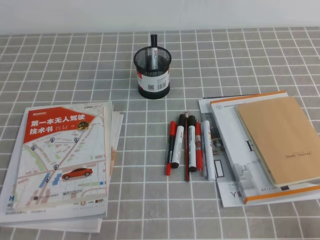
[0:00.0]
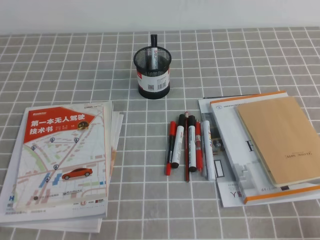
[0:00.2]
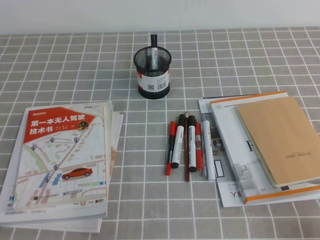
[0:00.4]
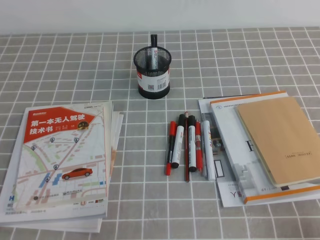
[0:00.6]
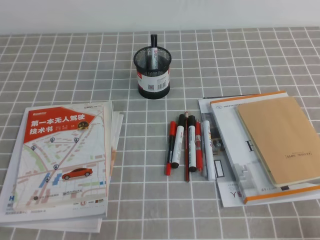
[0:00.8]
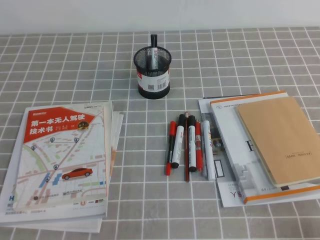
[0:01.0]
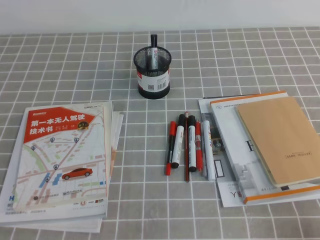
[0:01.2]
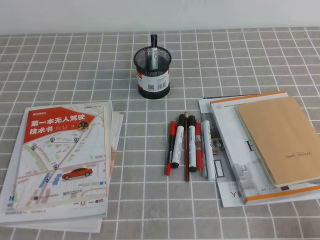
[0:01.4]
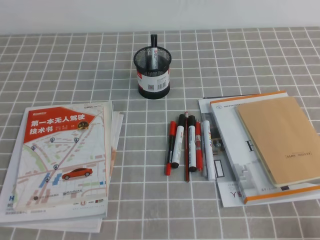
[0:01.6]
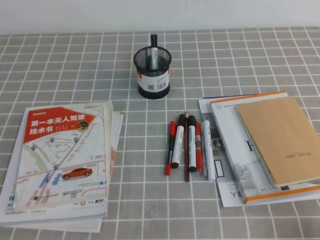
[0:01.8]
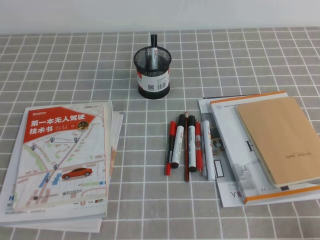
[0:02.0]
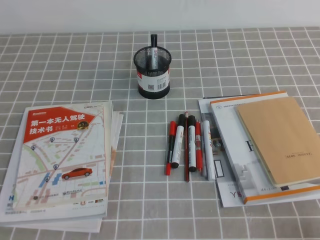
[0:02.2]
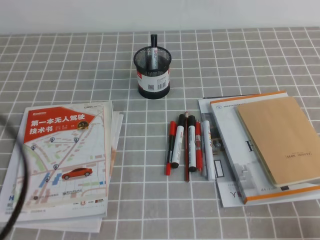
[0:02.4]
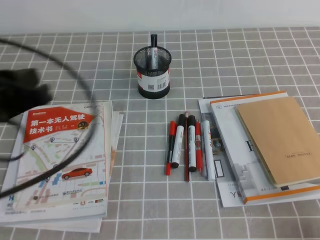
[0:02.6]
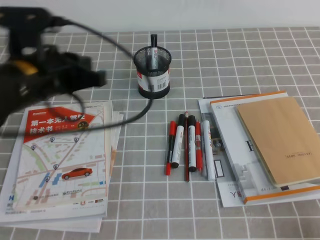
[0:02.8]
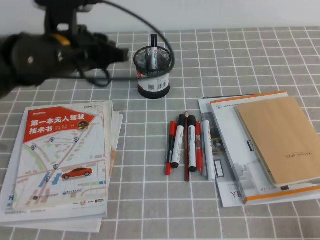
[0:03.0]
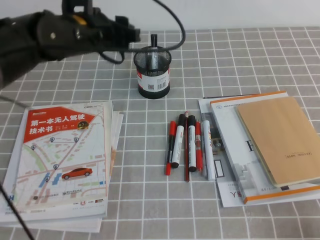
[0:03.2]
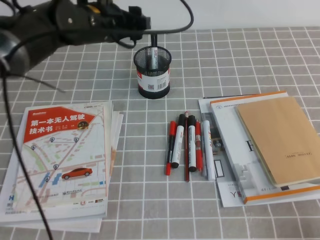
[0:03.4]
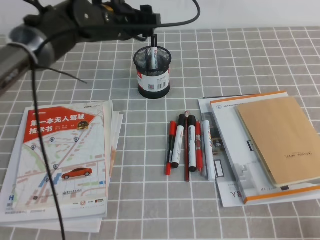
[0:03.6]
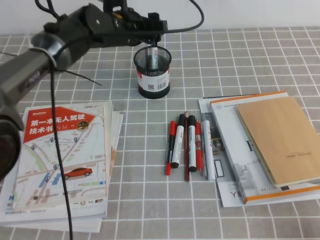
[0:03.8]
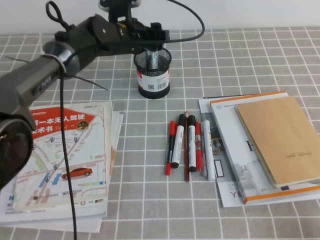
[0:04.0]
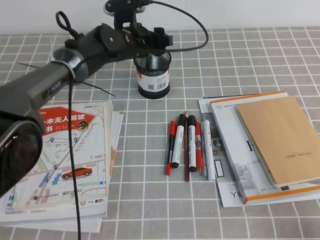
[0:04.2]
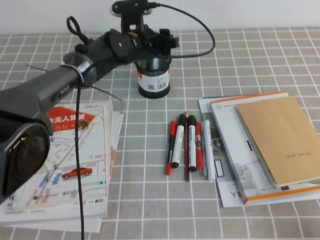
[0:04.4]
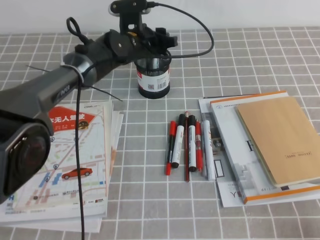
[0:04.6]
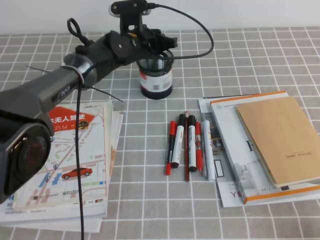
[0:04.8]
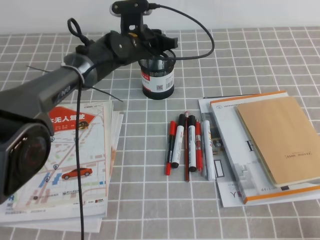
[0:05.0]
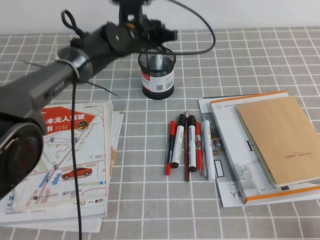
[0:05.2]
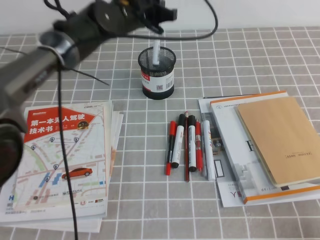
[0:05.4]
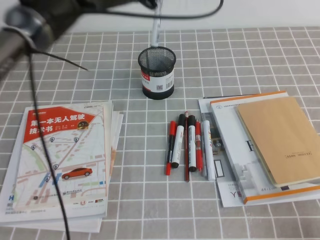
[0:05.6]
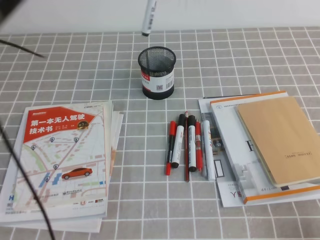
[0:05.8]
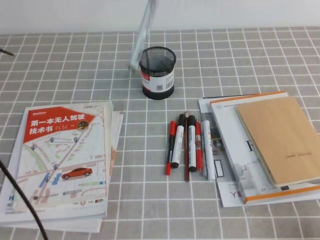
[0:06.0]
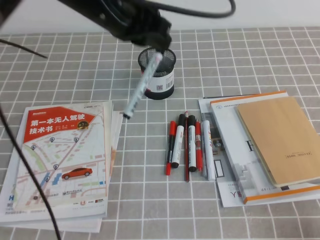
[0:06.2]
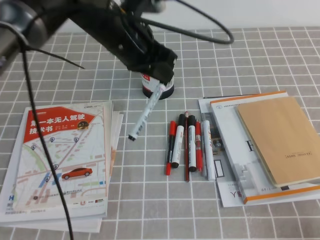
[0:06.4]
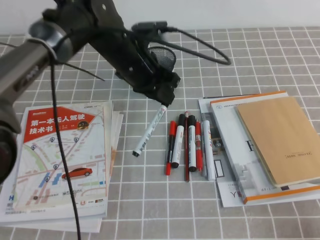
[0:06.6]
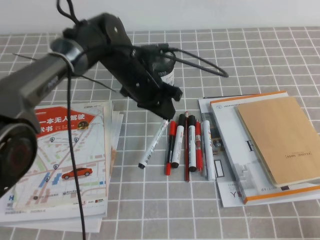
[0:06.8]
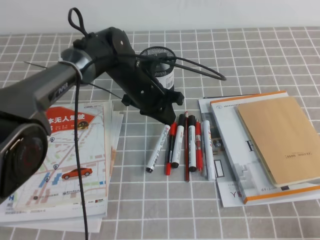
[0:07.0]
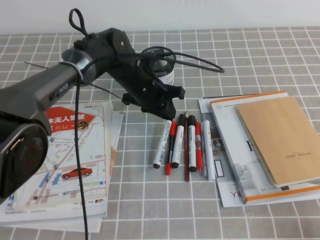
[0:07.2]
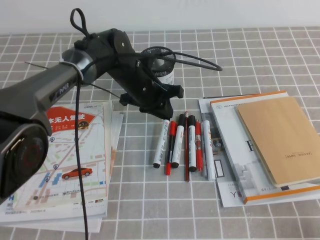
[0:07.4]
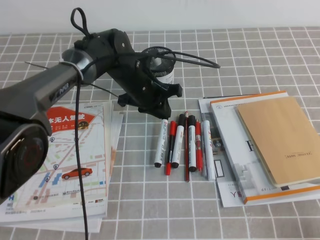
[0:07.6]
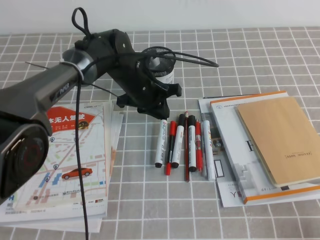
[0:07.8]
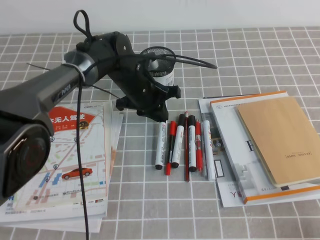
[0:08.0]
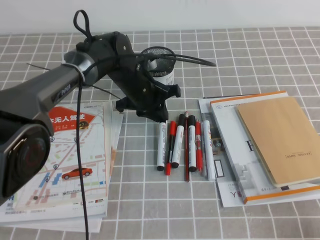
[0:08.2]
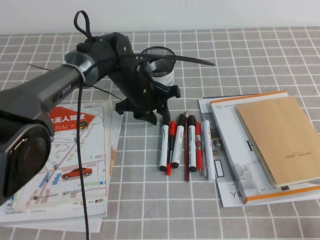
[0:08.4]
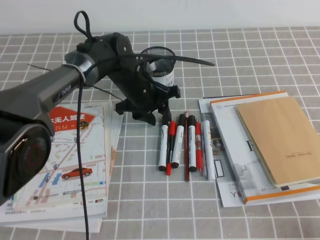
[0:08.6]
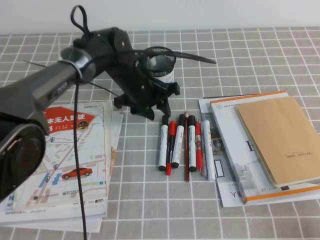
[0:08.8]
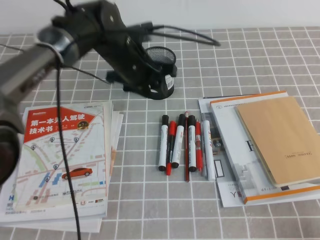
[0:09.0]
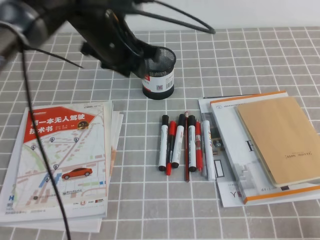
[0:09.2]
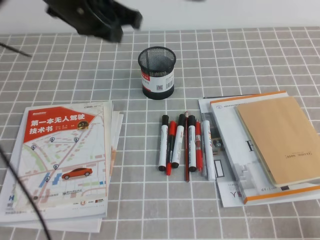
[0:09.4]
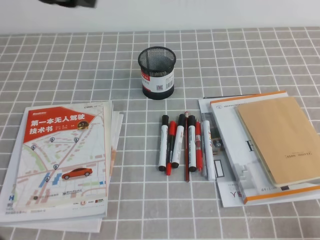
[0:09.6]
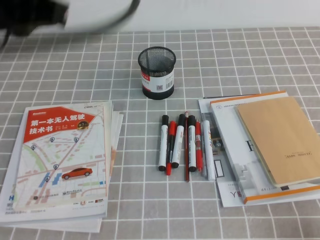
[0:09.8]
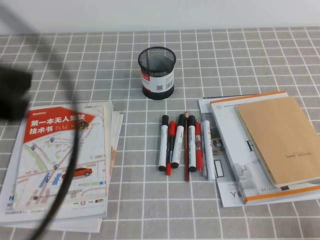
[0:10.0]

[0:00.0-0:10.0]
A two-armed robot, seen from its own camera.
1.4 to 2.8 s: The left gripper moves forward, upward and to the right, some 25 cm.
2.8 to 4.2 s: The left gripper shifts some 30 cm forward, to the right and downward, and opens up.
4.2 to 5.8 s: The left gripper shifts roughly 20 cm upward and backward, and closes its fingers.
5.8 to 7.2 s: The left gripper goes some 20 cm downward.
7.2 to 8.6 s: The left gripper opens.
8.6 to 10.0 s: The left gripper shifts roughly 40 cm backward, upward and to the left, and closes up.

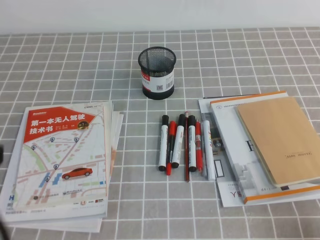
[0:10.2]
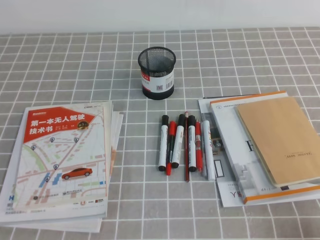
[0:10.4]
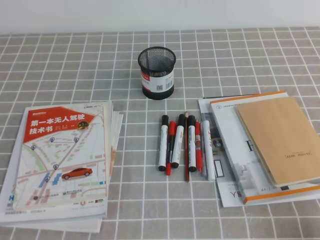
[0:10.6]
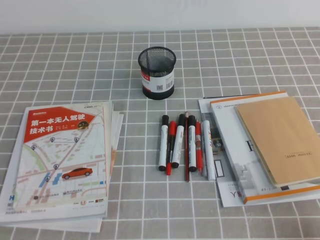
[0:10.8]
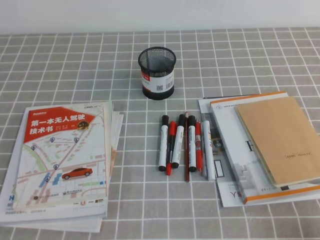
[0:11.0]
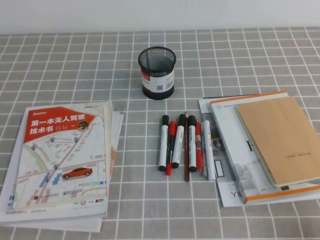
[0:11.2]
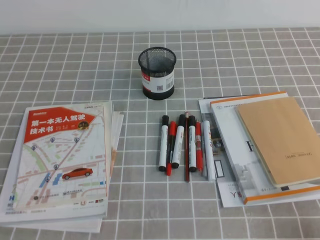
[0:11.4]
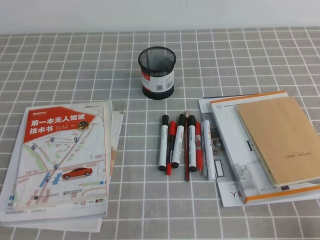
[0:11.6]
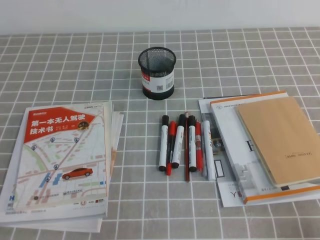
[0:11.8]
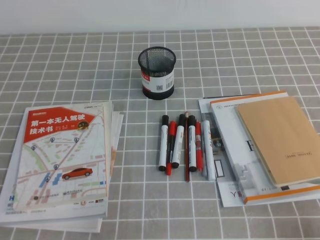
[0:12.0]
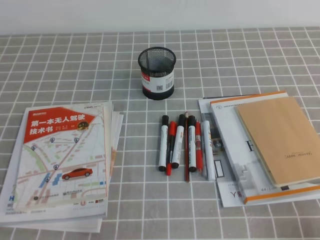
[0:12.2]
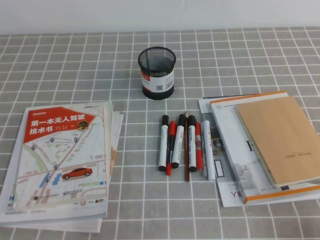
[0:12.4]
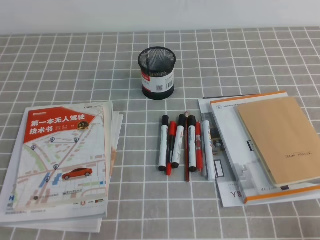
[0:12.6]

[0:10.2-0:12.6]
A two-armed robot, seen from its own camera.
10.2 to 11.4 s: The left gripper heads downward, covering some 15 cm.

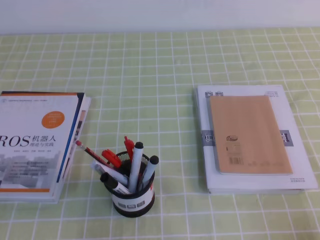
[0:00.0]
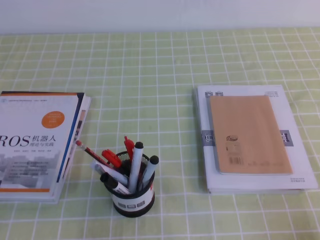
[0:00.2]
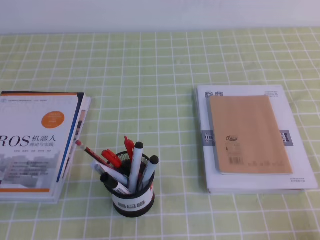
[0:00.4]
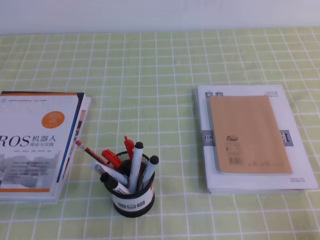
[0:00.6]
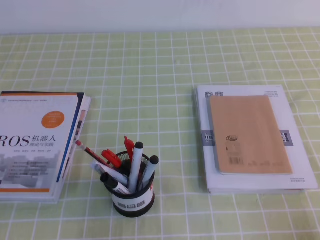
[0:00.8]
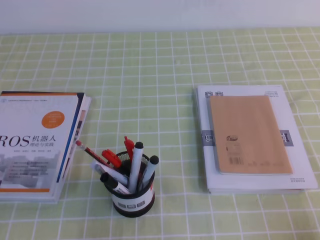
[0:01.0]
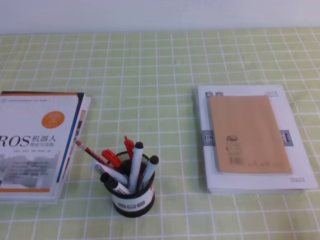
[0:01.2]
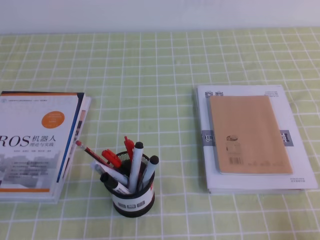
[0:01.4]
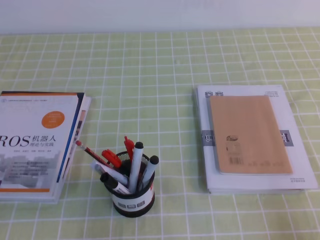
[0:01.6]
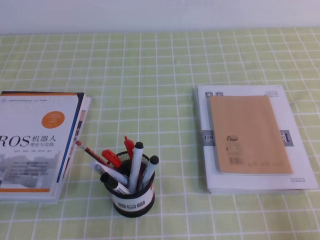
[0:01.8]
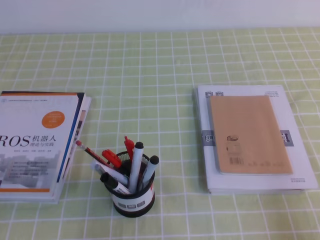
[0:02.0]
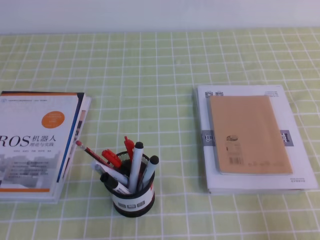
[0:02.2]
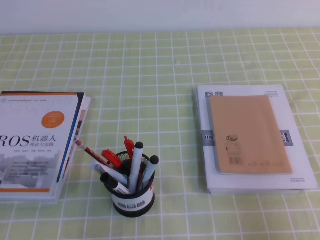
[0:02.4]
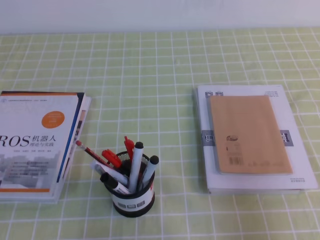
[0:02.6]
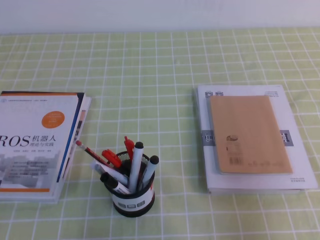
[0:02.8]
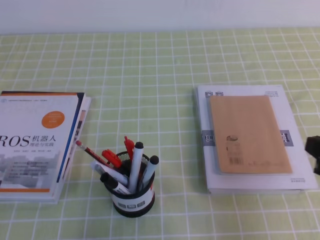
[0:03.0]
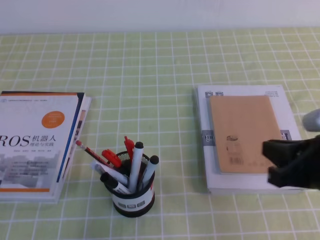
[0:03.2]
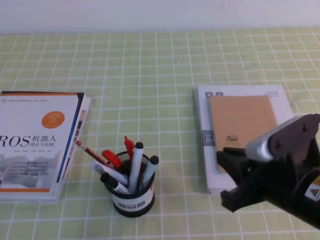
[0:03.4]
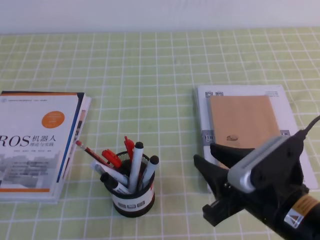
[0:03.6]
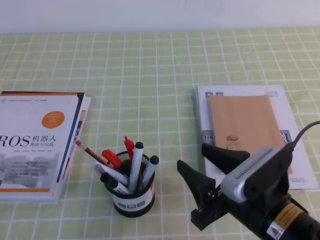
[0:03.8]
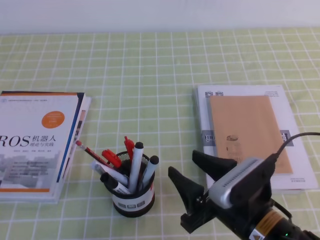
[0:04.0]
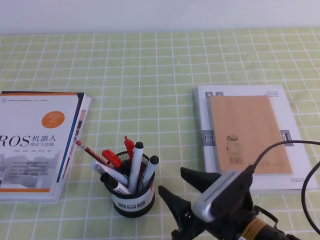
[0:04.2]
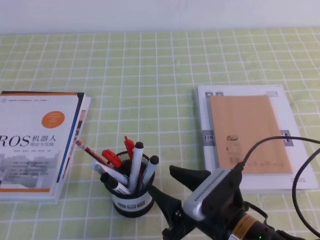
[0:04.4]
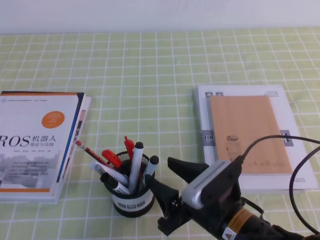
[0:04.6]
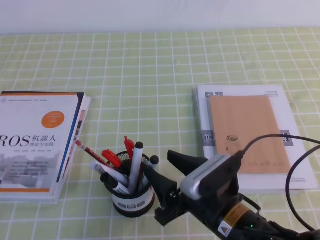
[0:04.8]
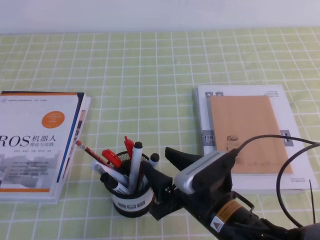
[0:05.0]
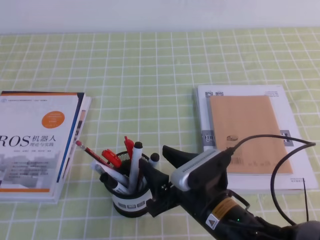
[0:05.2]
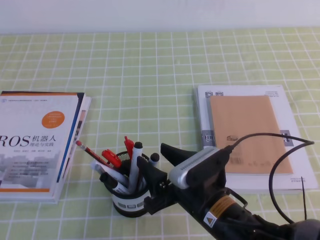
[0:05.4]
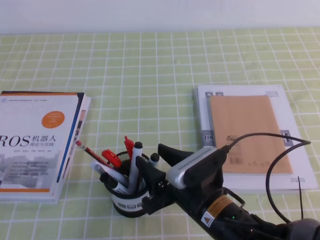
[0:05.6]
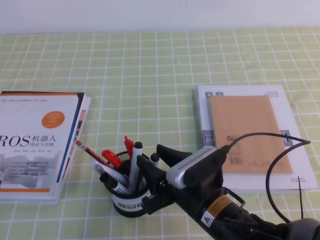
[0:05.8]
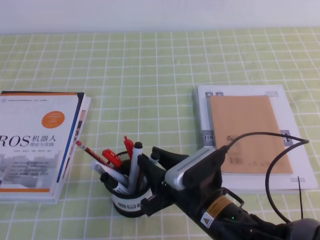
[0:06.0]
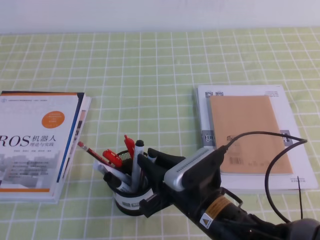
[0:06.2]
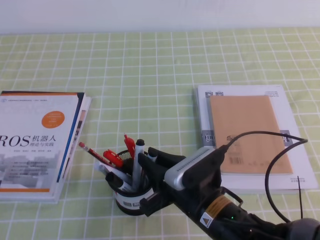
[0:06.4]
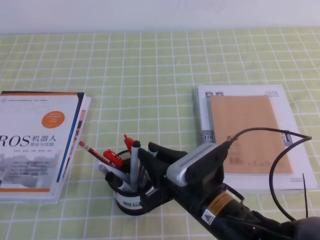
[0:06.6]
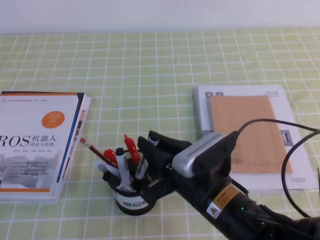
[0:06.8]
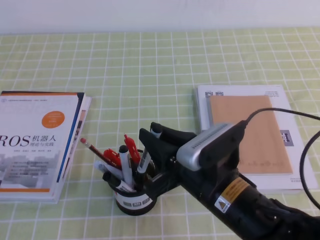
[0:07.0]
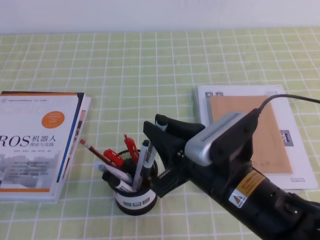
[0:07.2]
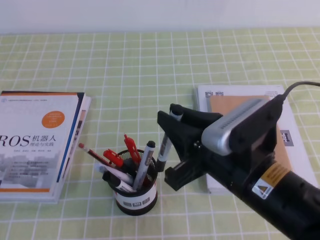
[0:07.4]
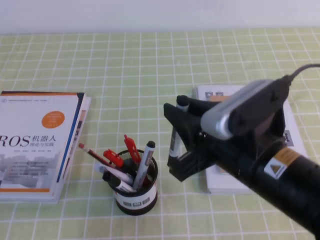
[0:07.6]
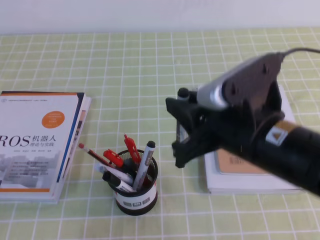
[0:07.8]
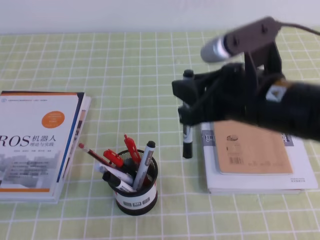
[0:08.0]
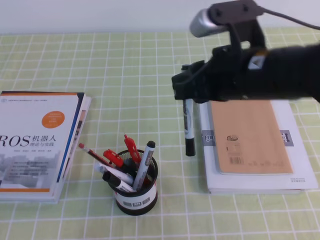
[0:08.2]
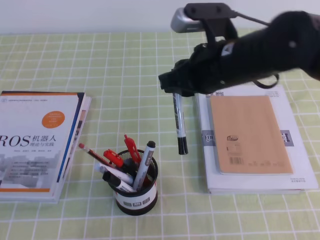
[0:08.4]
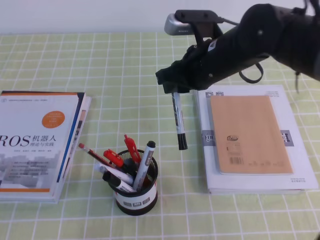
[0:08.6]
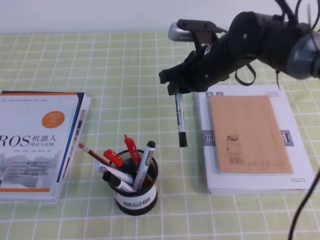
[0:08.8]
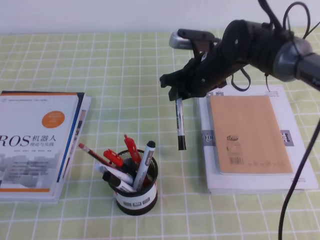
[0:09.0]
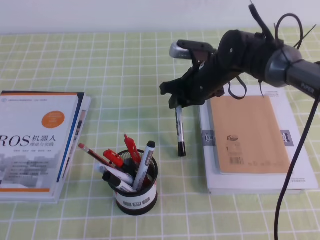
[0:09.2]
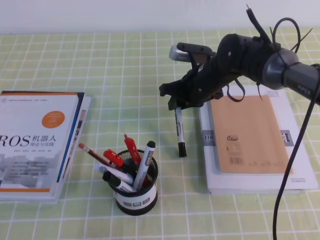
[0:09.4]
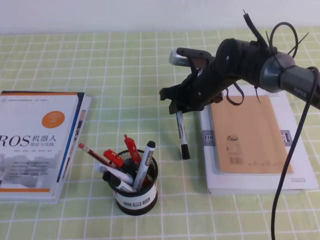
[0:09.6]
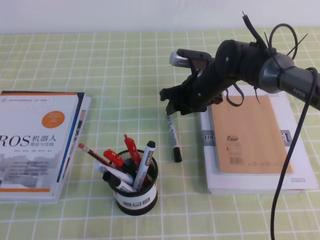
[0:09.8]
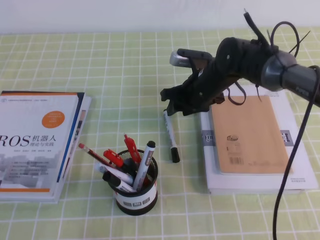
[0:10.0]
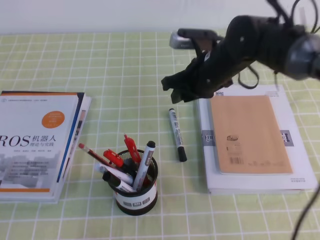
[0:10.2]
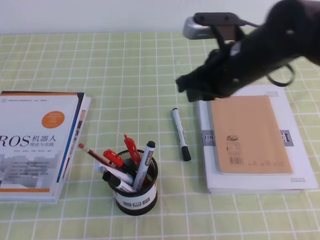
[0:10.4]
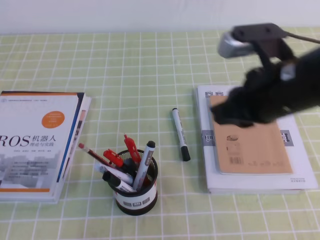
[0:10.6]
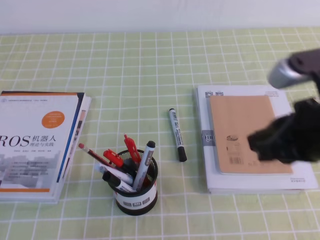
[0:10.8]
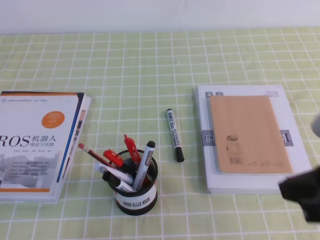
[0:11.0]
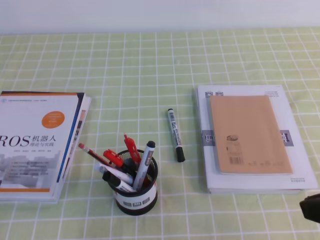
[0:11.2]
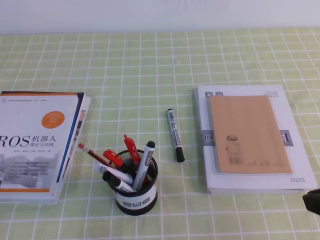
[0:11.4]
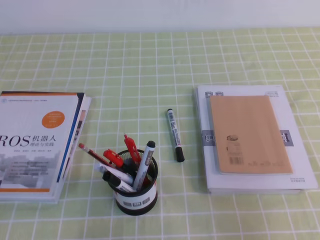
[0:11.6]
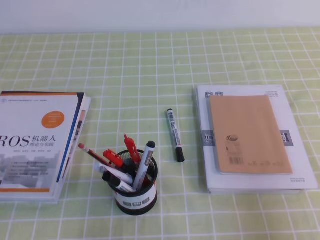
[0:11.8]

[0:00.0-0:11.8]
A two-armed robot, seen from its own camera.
1.4 to 3.0 s: The right gripper heads forward and upward, covering some 15 cm.
3.0 to 4.4 s: The right gripper heads to the left and downward, covering some 20 cm, and opens its fingers.
4.4 to 6.0 s: The right gripper closes.
6.0 to 7.4 s: The right gripper travels upward by approximately 10 cm.
7.4 to 8.8 s: The right gripper goes roughly 25 cm forward.
8.8 to 10.4 s: The right gripper is displaced backward by roughly 5 cm, moves roughly 10 cm downward and comes back, and opens, then closes once more.
10.4 to 11.8 s: The right gripper moves backward and to the right, about 30 cm.
